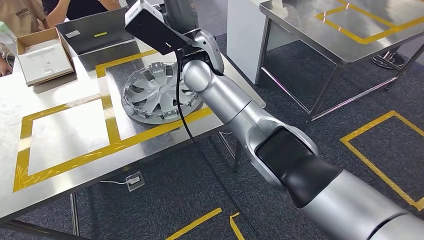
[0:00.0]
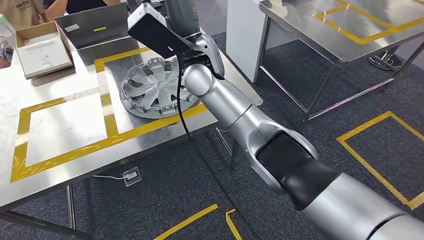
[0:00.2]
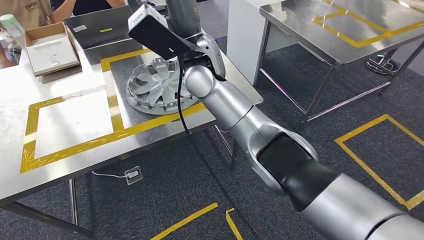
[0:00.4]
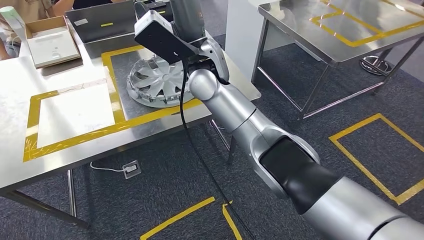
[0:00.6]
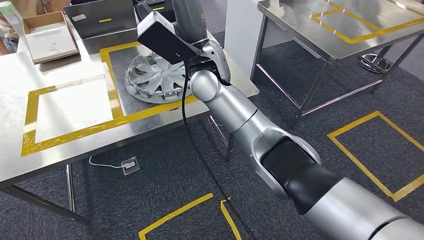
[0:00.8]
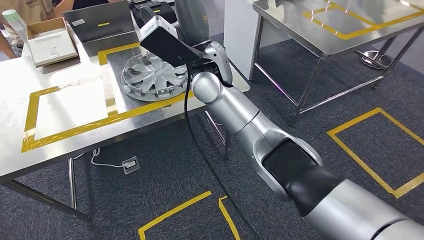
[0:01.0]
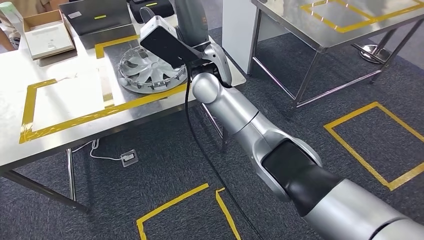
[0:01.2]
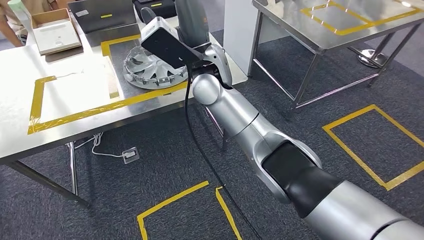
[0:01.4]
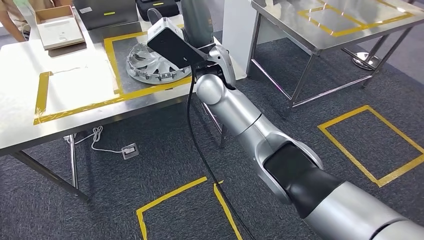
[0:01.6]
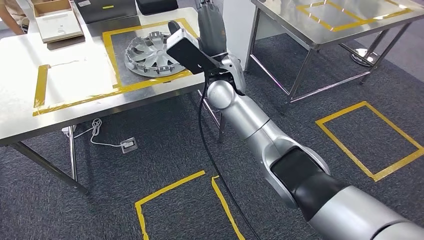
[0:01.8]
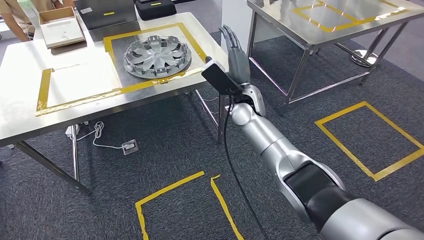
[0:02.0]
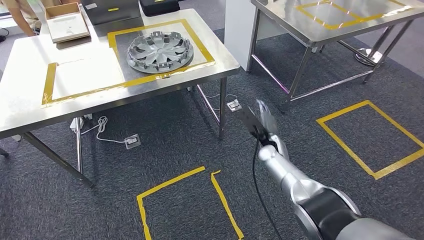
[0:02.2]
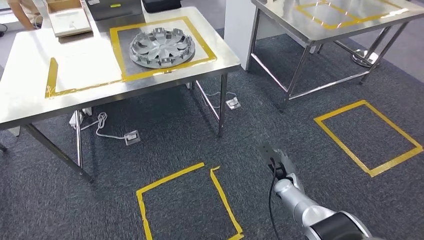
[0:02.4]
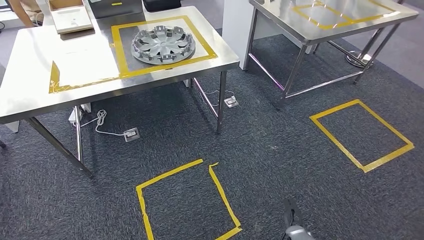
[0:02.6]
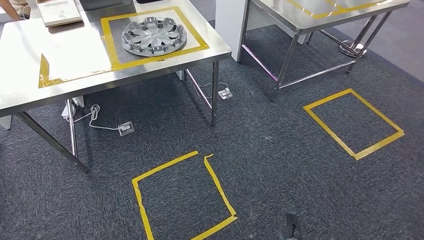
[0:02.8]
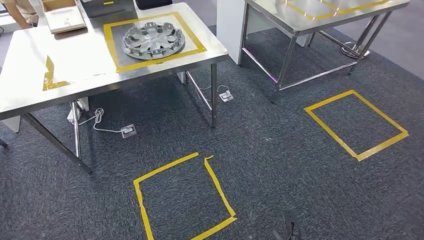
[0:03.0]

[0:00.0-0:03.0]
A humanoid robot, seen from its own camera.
Step, 0:00.0 to 0:02.8: Return to the initial position at the workbench.
